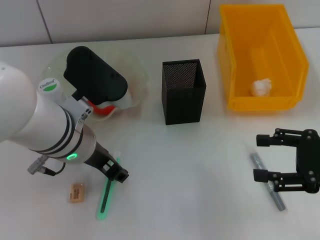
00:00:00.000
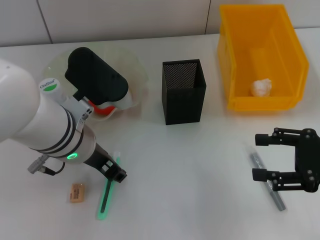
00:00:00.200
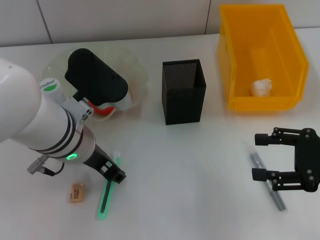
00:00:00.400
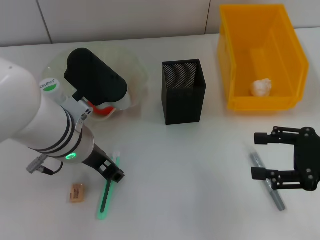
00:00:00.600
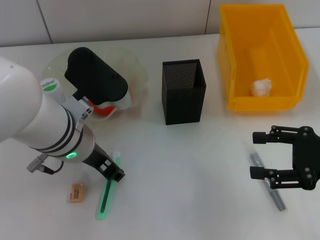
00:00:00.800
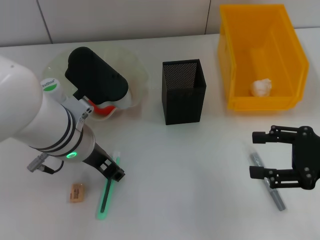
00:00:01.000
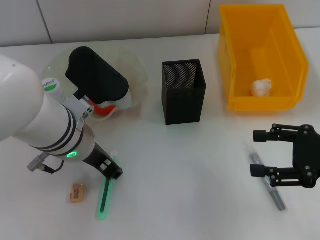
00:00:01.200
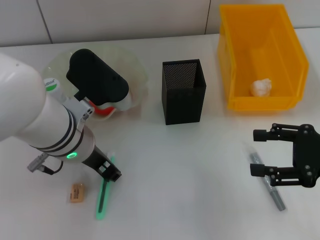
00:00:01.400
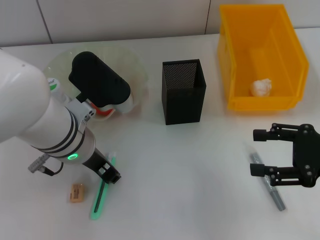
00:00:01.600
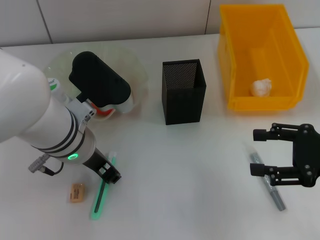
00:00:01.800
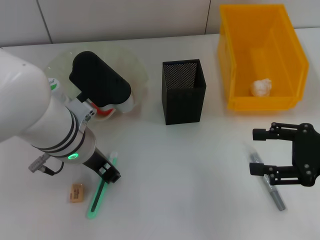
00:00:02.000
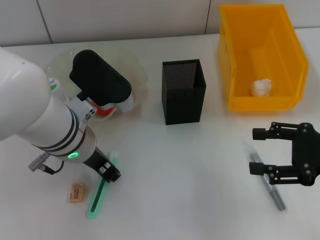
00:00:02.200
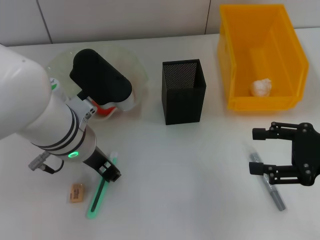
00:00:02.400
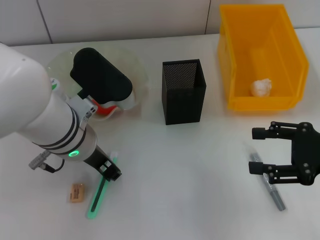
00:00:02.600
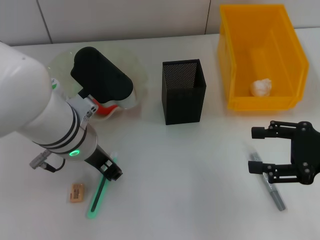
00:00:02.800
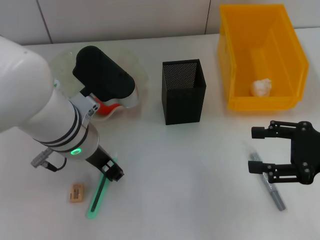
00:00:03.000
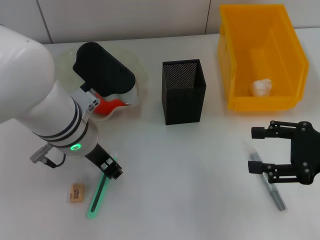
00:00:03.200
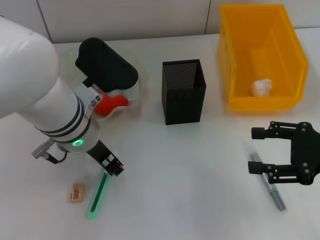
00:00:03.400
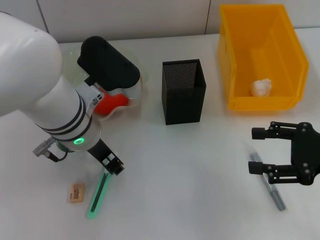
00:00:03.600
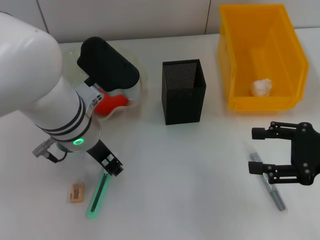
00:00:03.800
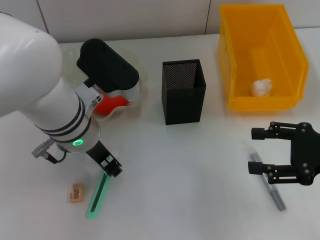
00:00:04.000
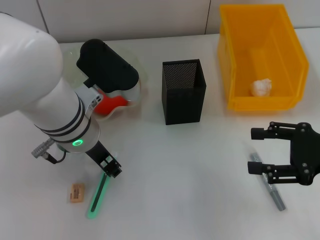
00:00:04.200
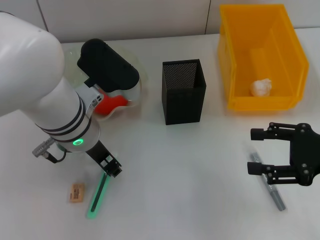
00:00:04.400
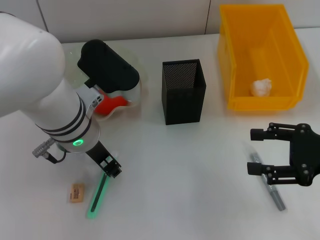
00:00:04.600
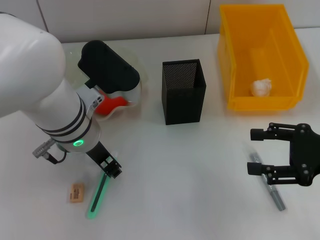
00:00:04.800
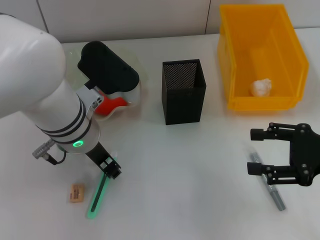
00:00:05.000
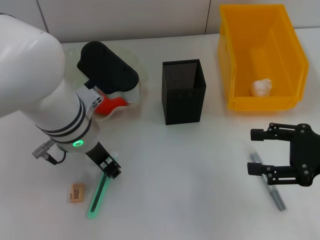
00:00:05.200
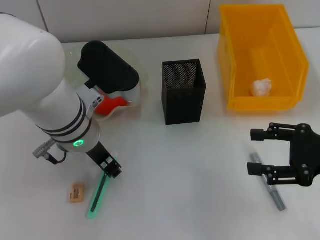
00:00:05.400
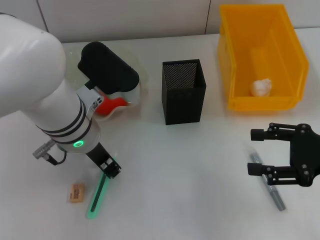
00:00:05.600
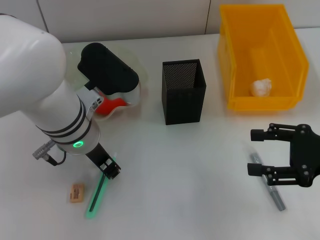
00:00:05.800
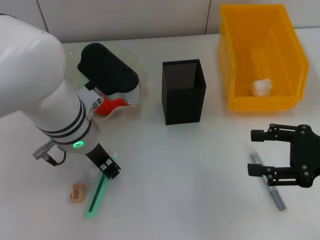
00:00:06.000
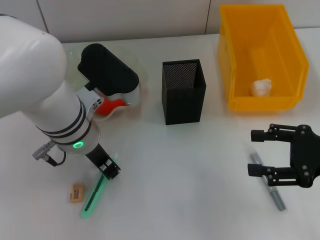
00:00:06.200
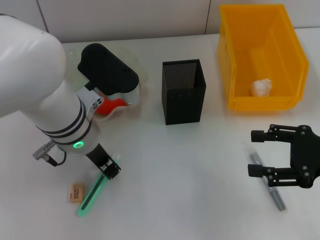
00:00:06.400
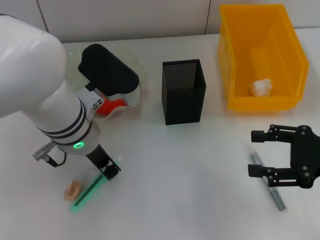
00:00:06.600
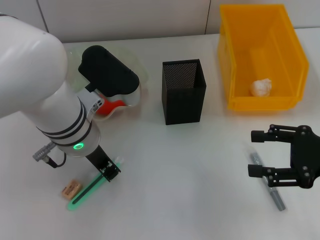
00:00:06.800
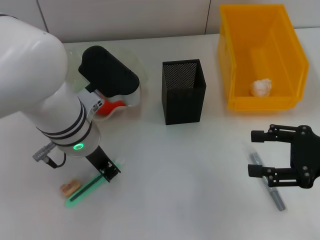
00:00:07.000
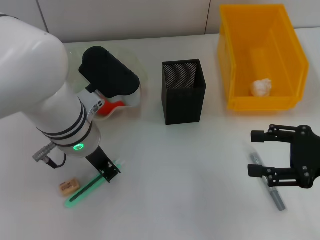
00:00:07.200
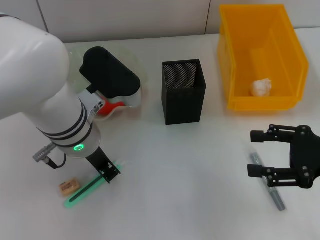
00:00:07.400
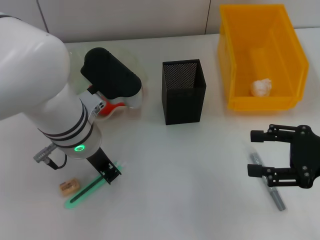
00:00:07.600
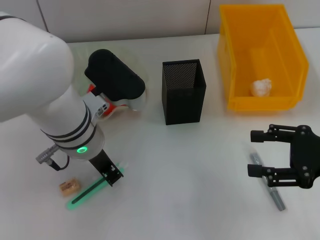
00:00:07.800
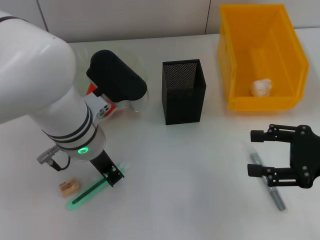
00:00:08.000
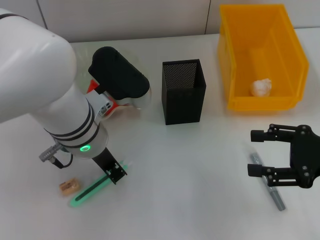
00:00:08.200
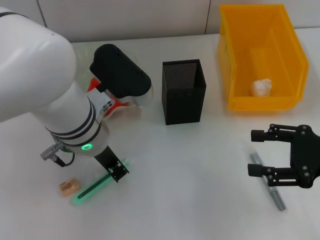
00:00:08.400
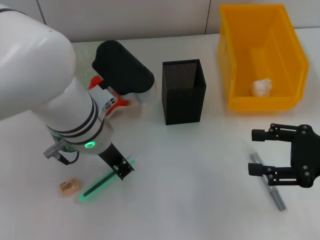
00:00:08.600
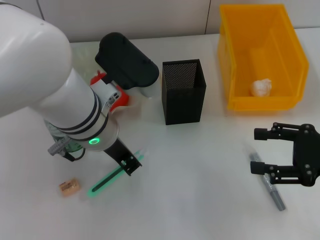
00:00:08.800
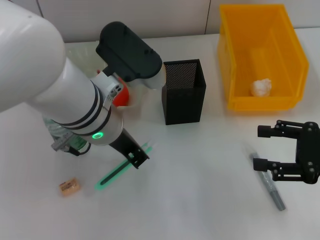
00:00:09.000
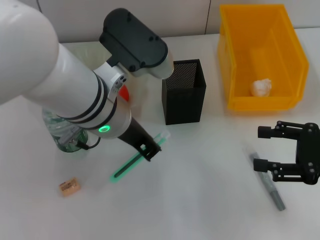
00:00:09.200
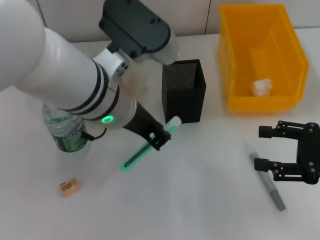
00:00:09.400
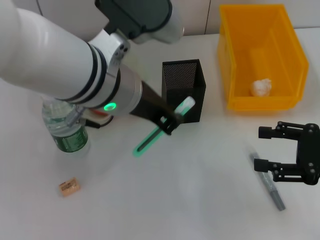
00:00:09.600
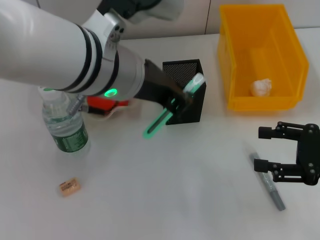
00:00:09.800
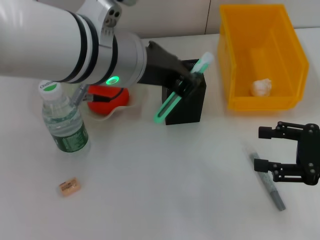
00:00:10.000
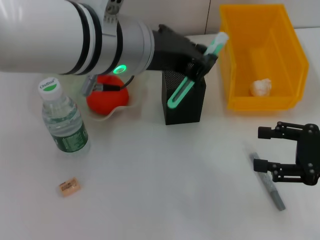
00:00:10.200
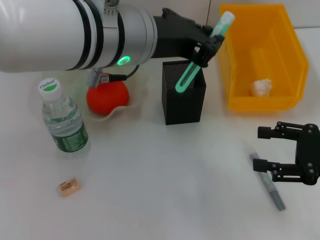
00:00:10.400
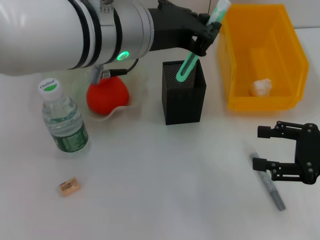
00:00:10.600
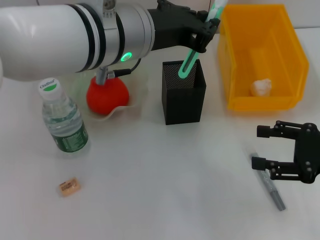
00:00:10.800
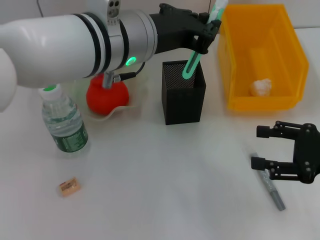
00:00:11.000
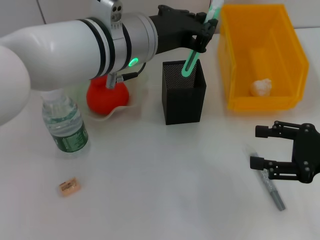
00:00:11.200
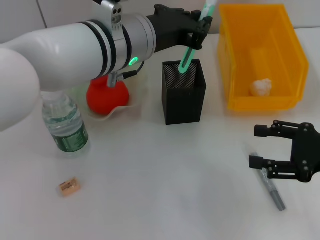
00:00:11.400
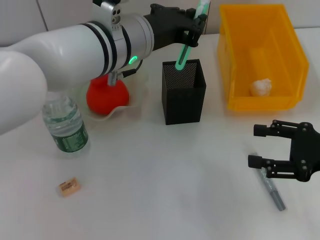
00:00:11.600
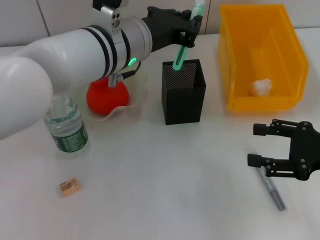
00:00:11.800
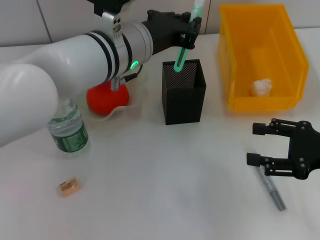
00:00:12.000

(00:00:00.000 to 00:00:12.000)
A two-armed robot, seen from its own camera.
Step, 00:00:00.000 - 00:00:07.800: Grab the blue utility knife with the left hand.
00:00:00.000 - 00:00:01.600: The left gripper closes.
00:00:01.600 - 00:00:03.000: Both grippers stay put.
00:00:03.000 - 00:00:06.000: Neither gripper changes place.
00:00:06.000 - 00:00:07.600: Both grippers stay put.
00:00:07.600 - 00:00:09.000: There are only small adjustments of the grippers.
00:00:09.000 - 00:00:10.400: The left gripper moves upward, some 10 cm.
00:00:10.400 - 00:00:12.000: The left gripper travels downward and forward by approximately 10 cm.

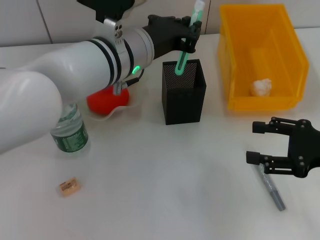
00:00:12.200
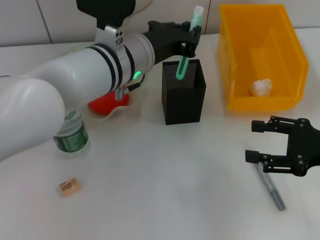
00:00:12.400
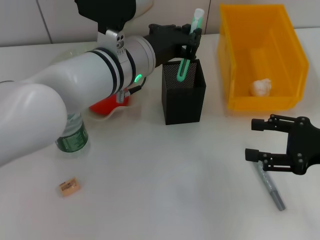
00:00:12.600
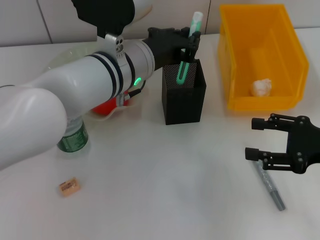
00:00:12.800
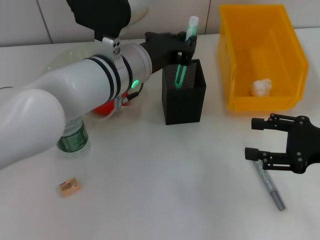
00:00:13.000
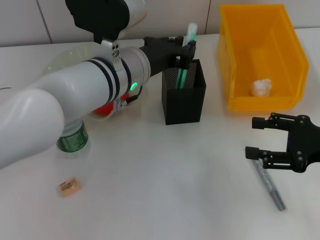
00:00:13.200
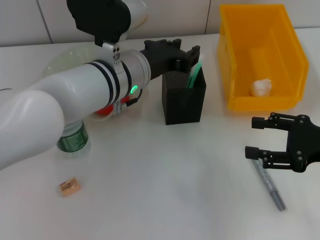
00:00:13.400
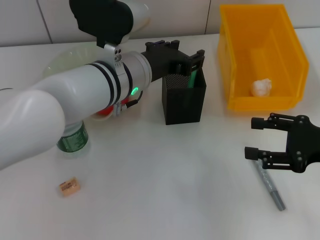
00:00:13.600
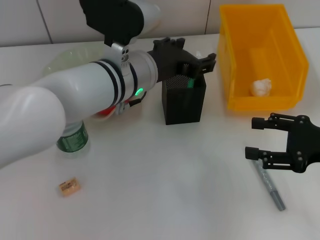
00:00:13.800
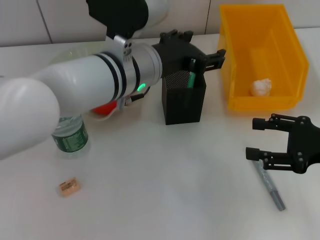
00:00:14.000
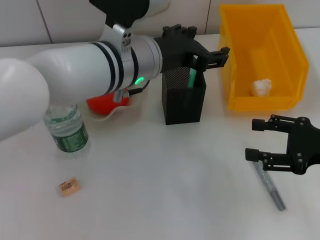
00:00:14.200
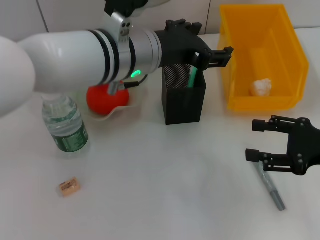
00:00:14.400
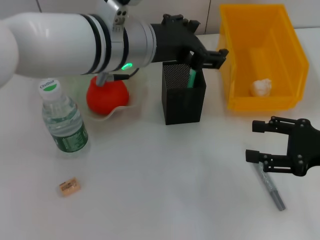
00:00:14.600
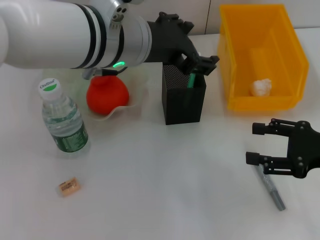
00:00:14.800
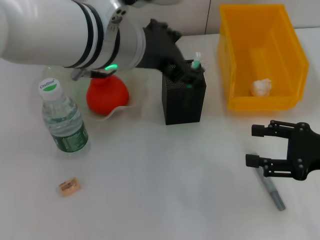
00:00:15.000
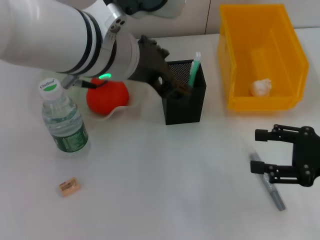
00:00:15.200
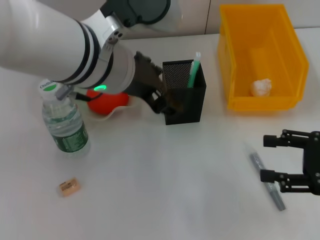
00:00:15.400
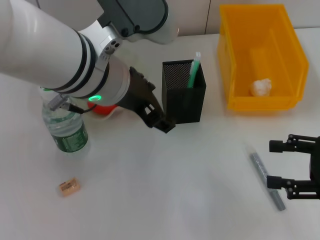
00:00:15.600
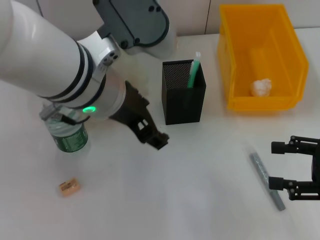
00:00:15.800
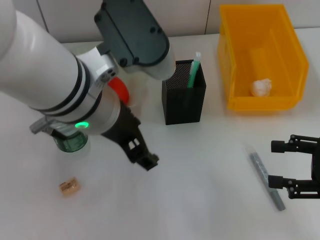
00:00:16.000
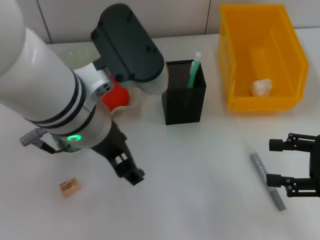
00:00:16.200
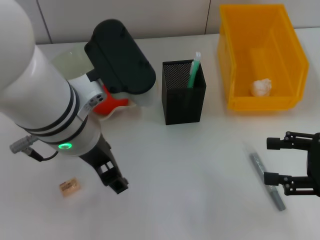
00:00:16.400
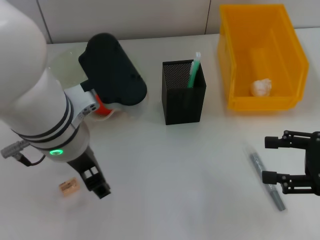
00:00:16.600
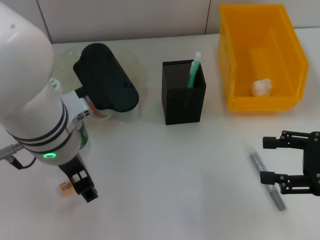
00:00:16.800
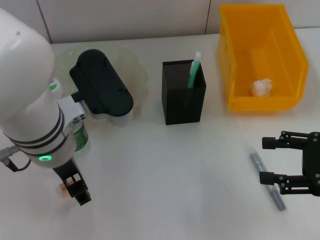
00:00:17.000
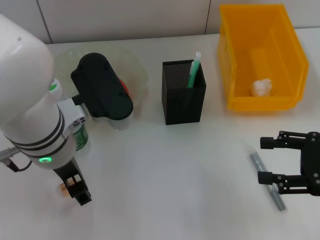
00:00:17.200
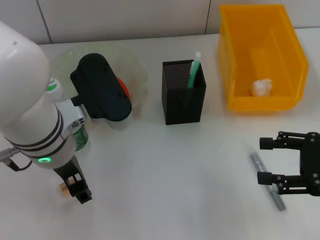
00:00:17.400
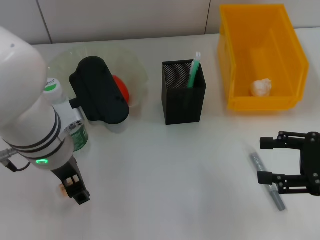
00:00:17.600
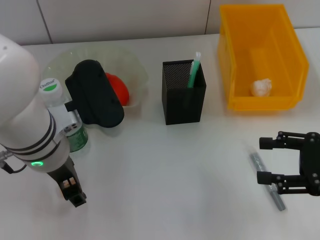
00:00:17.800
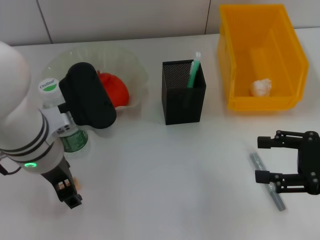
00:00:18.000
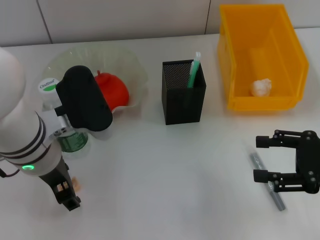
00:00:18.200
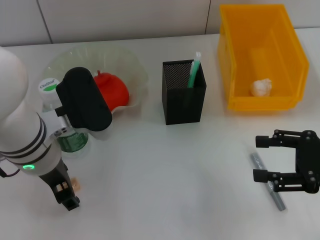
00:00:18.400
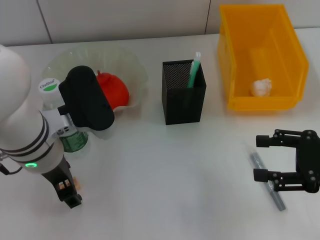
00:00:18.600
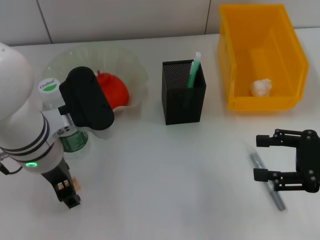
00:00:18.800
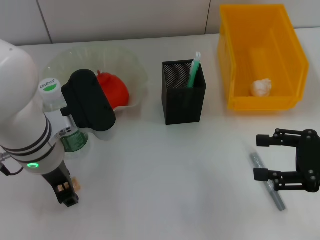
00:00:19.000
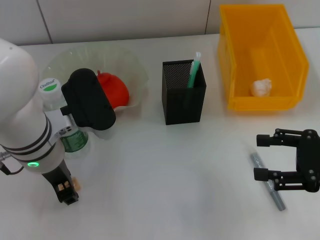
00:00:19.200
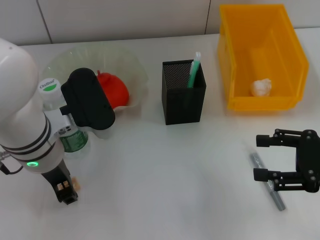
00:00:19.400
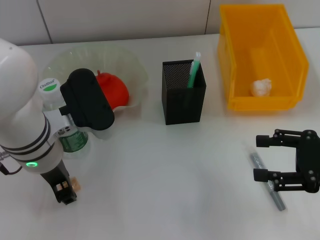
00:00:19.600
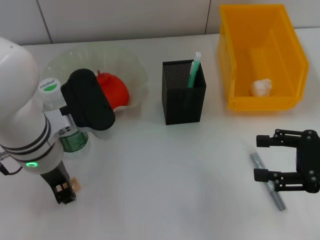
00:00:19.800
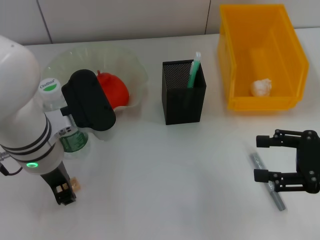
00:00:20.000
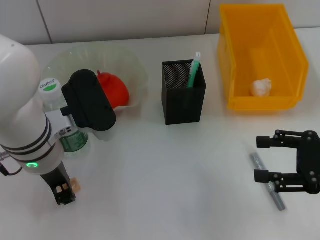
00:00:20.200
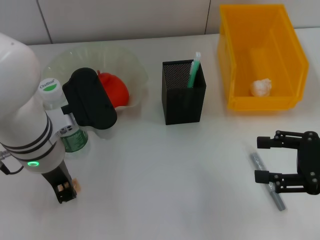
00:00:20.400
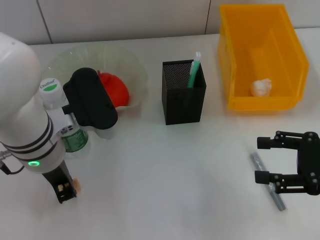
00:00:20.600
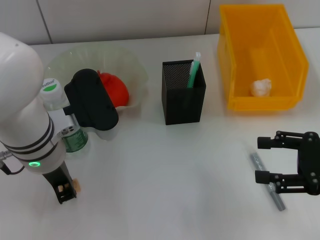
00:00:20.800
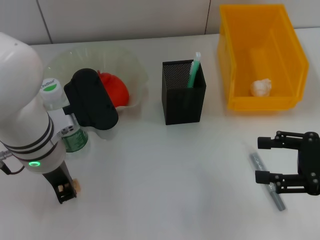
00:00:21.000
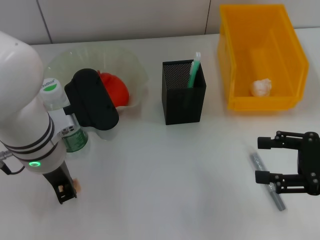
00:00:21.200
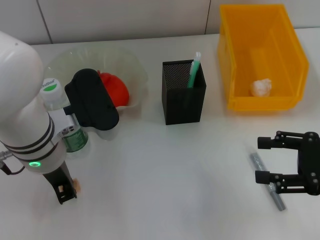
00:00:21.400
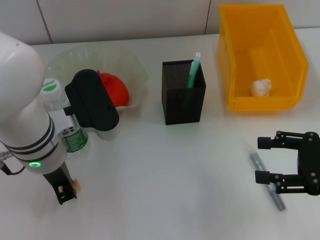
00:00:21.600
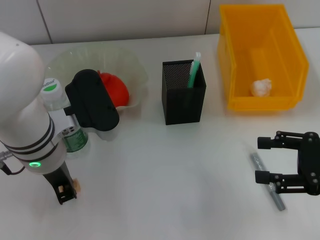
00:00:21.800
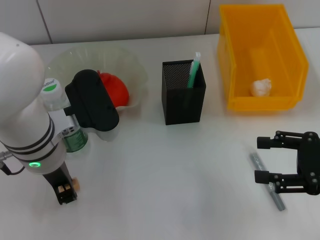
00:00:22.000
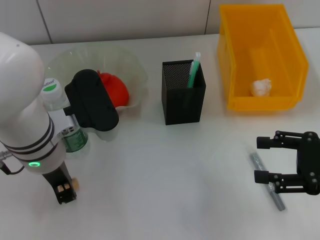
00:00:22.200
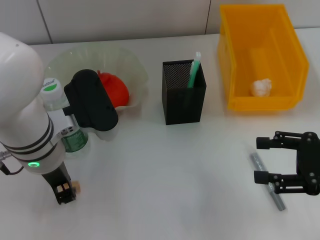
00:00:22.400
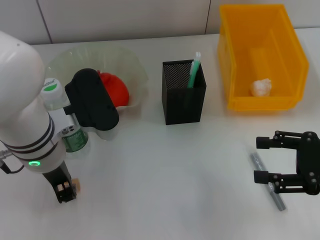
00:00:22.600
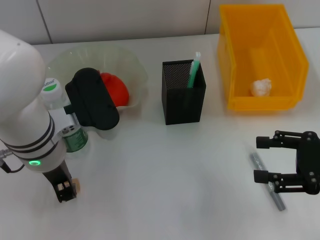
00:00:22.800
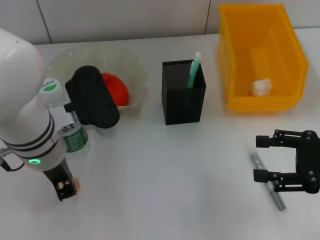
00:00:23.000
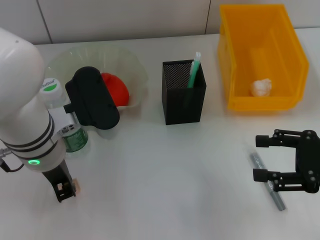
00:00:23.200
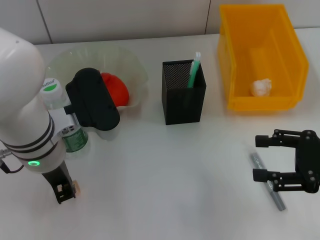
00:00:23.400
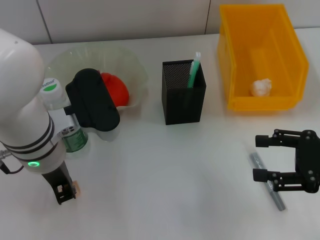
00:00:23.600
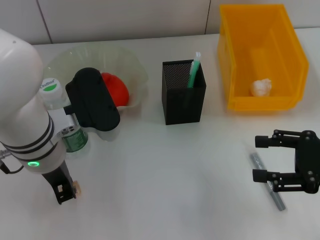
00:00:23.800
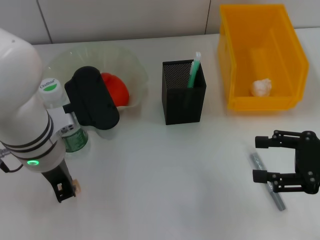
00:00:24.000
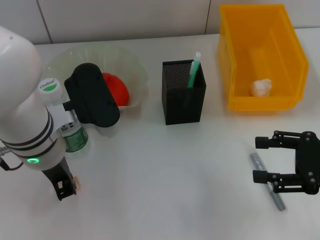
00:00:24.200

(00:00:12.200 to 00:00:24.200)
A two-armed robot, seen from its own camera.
Step, 00:00:13.600 - 00:00:23.800: Grab the eraser with the left hand.
00:00:12.200 - 00:00:13.800: The left gripper opens.
00:00:13.800 - 00:00:15.200: The left gripper moves upward, approximately 10 cm, and opens its fingers.
00:00:15.200 - 00:00:16.600: The left gripper changes place by approximately 5 cm.
00:00:16.600 - 00:00:18.200: The left gripper ends up roughly 5 cm from where it was.
00:00:18.200 - 00:00:19.800: The left gripper closes up.
00:00:19.800 - 00:00:21.200: The left gripper closes up.
00:00:21.200 - 00:00:24.200: Both grippers stay about where they are.
